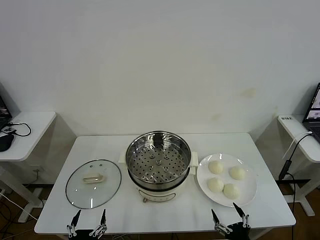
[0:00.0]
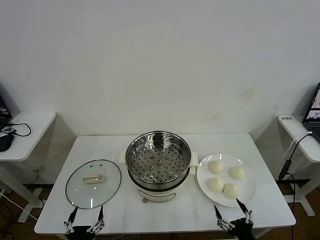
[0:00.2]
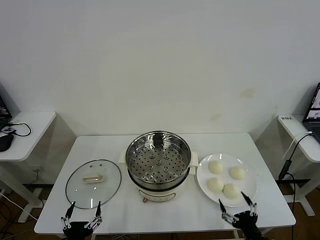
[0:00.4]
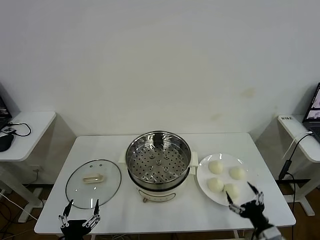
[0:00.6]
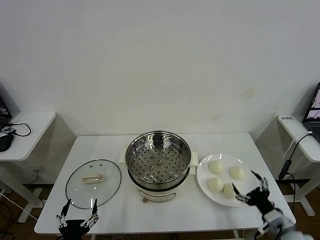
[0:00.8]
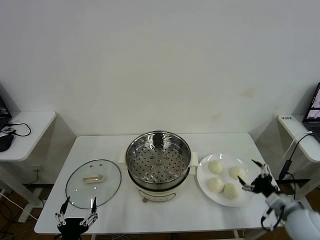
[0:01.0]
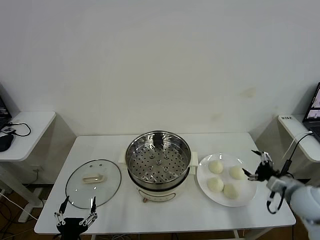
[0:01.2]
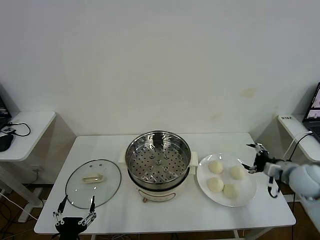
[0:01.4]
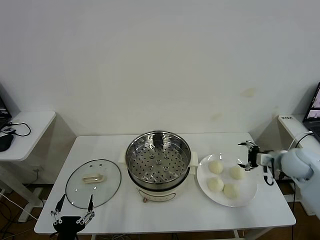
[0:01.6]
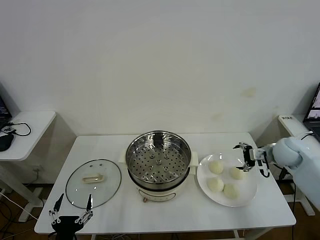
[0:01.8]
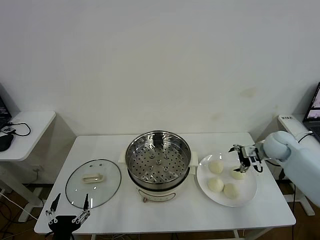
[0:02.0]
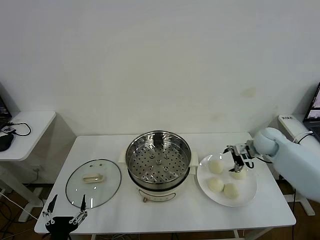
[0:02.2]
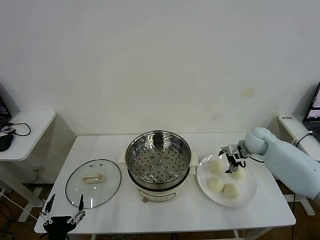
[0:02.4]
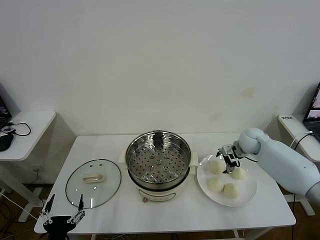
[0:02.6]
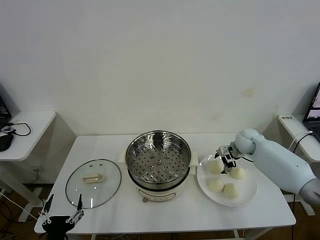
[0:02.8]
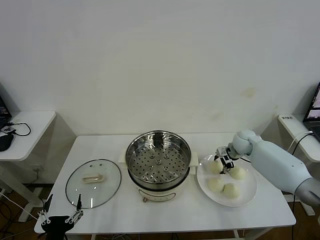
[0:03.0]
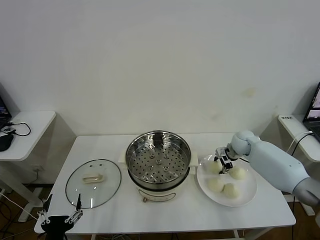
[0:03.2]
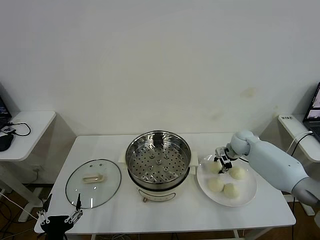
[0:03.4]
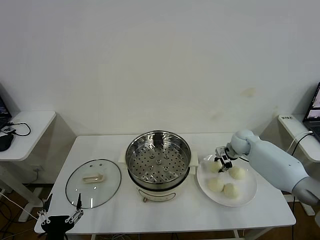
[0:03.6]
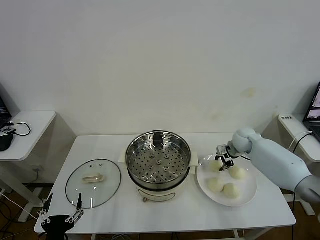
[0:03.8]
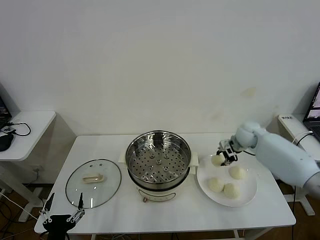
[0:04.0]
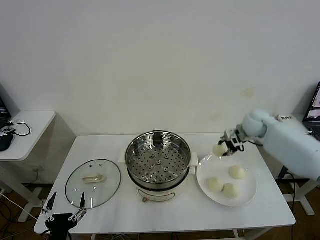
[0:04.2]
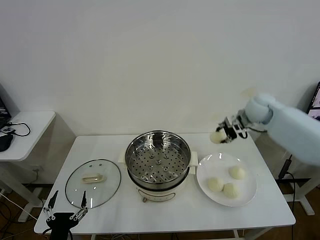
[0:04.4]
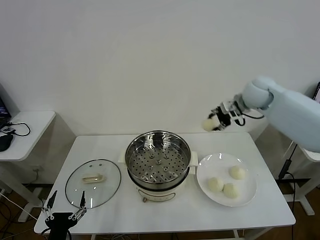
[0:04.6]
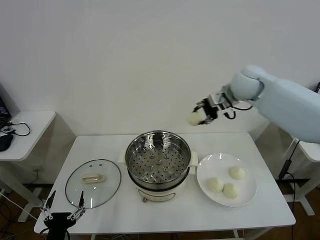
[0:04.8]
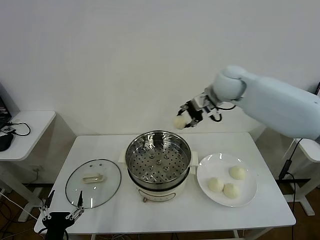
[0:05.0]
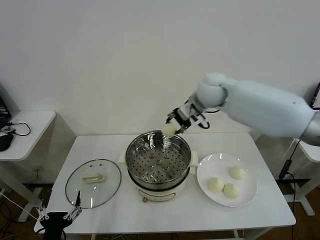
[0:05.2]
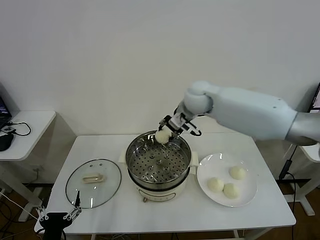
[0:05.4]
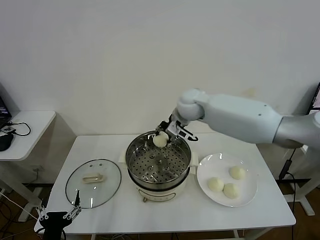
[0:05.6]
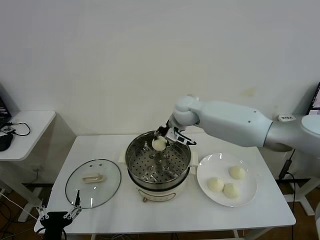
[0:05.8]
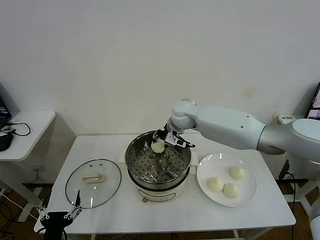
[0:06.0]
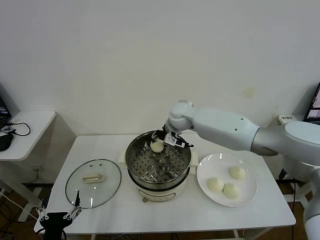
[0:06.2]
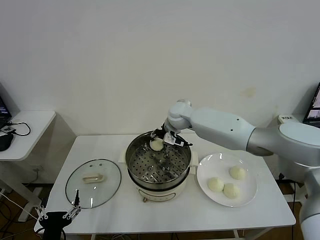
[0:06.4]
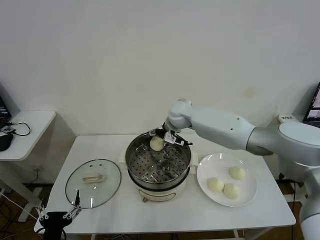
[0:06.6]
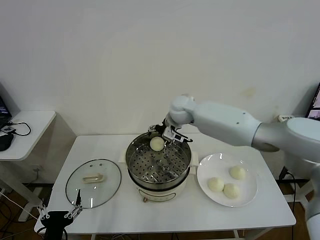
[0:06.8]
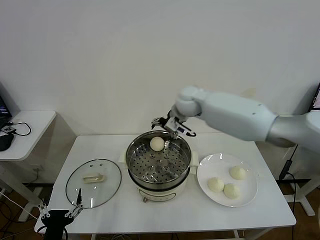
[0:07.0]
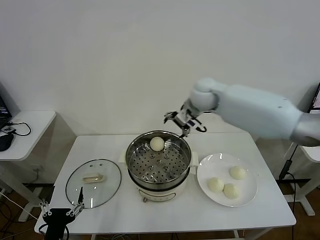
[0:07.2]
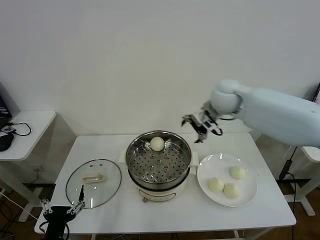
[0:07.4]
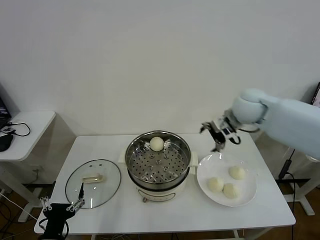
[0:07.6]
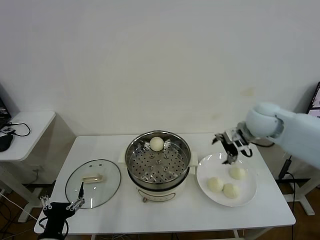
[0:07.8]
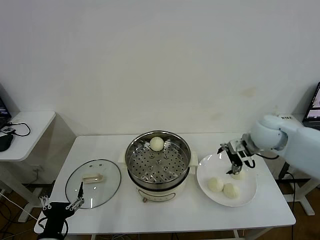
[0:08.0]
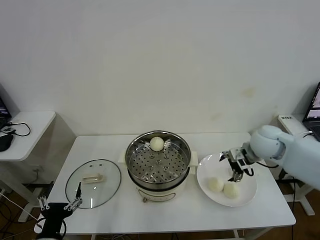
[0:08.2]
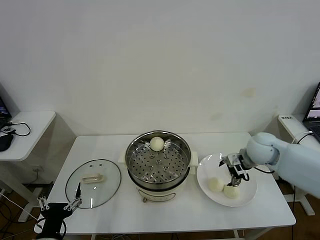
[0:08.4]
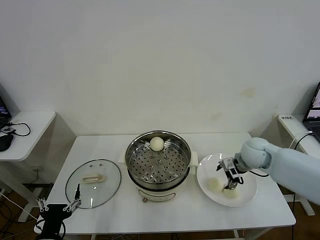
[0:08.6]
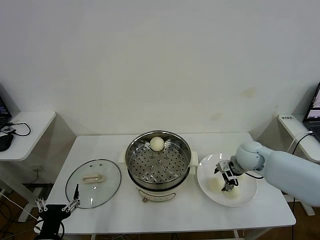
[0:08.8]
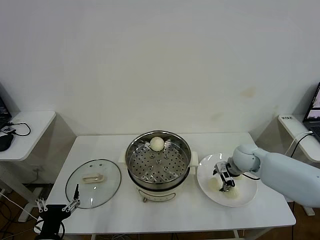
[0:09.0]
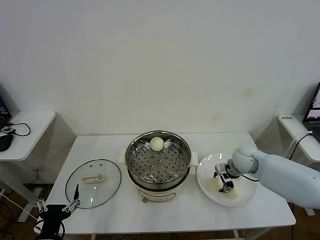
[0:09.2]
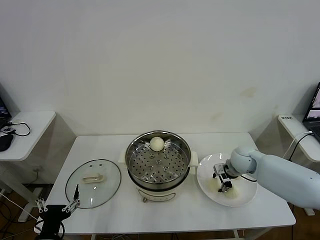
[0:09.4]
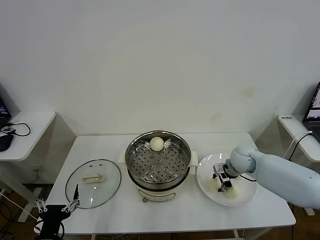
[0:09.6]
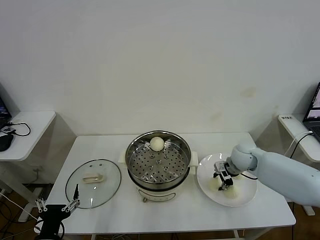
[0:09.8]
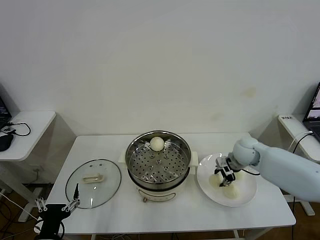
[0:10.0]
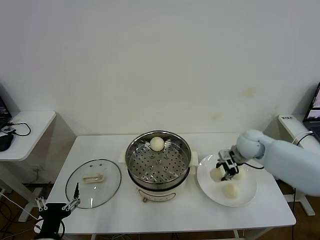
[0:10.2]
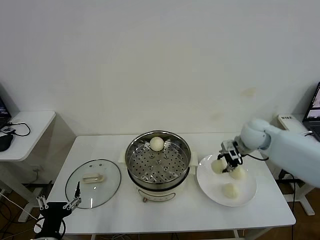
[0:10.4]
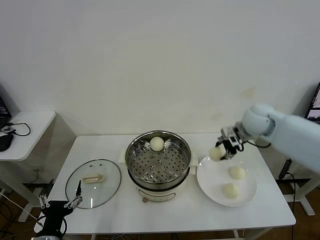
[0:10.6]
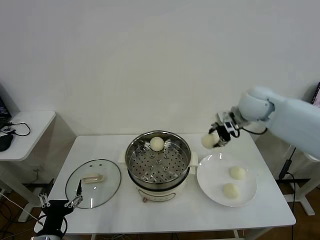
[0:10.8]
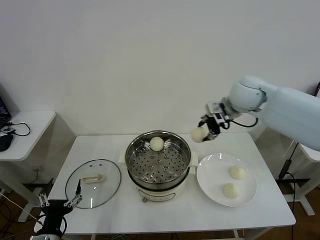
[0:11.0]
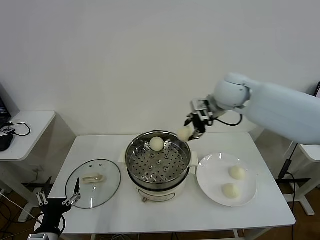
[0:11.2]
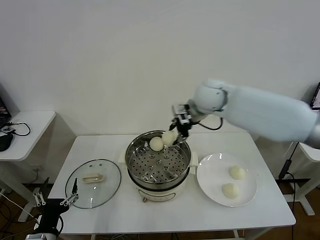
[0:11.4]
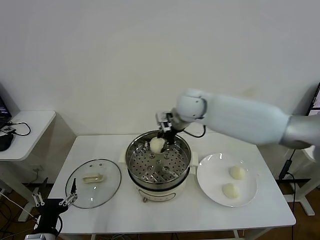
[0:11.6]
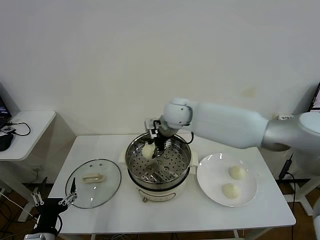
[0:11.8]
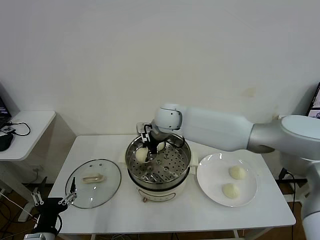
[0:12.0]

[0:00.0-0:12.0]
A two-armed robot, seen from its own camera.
Task of the whole recording: take steamed baozi put them in steamer then cover it.
Step, 0:00.0 to 0:03.4: Grasp the baozi in the plate with right gripper.
Step, 0:03.6 to 0:06.6: Place the baozi on the steamer with right gripper.
Step, 0:06.8 to 0:09.4: Grasp the baozi in the plate with right gripper.
0:01.6 to 0:03.0: The right gripper moves forward, to the left and downward, roughly 15 cm, and closes its fingers.
0:03.0 to 0:04.4: The right gripper shifts roughly 20 cm upward, and closes up.
0:04.4 to 0:06.0: The right gripper moves to the left, some 25 cm.
0:06.0 to 0:07.6: The right gripper moves to the right, about 20 cm, and opens.
0:07.6 to 0:09.0: The right gripper is displaced downward by about 20 cm, and closes its fingers.
0:09.0 to 0:10.4: The right gripper moves upward, roughly 15 cm, and closes its fingers.
0:10.4 to 0:12.0: The right gripper is displaced to the left by approximately 30 cm.

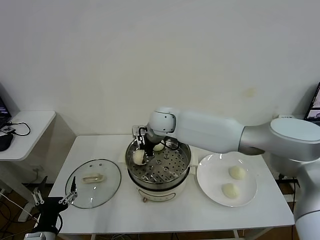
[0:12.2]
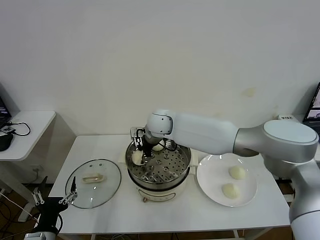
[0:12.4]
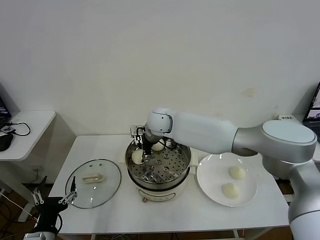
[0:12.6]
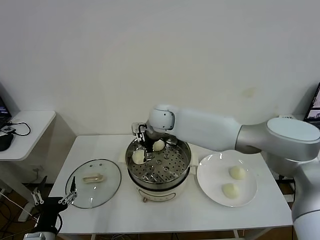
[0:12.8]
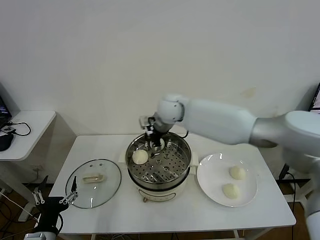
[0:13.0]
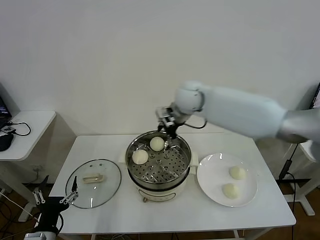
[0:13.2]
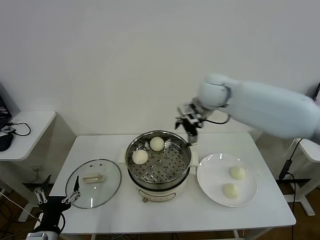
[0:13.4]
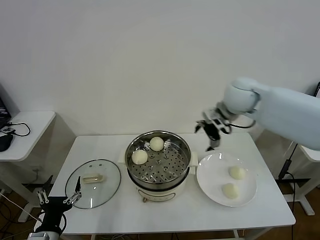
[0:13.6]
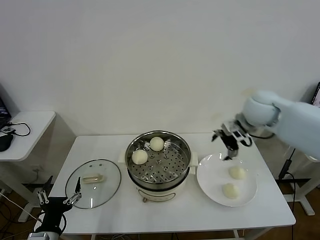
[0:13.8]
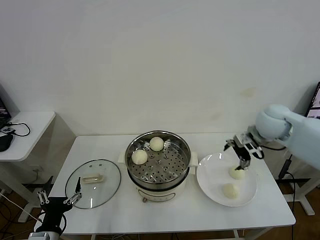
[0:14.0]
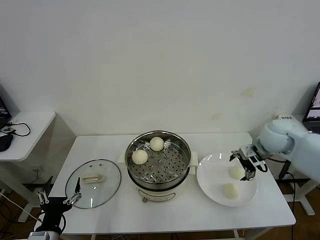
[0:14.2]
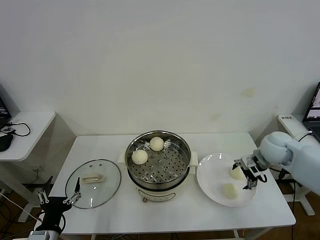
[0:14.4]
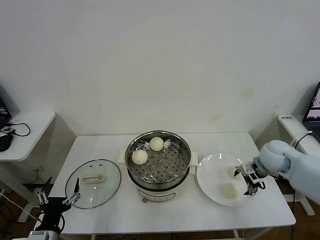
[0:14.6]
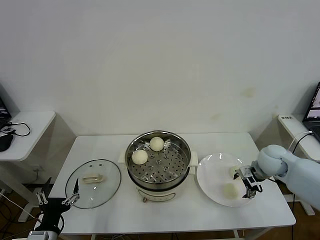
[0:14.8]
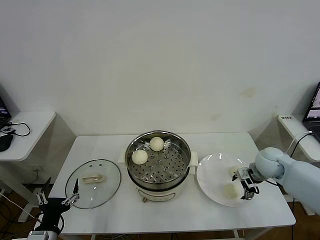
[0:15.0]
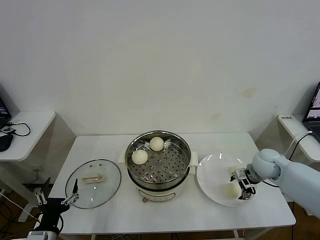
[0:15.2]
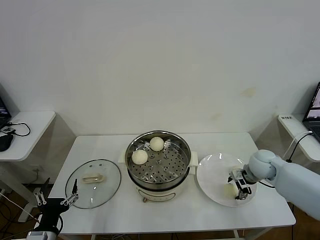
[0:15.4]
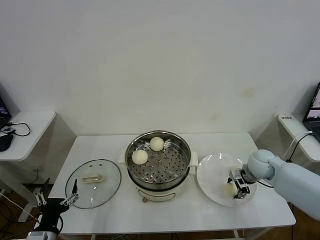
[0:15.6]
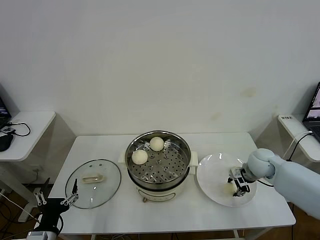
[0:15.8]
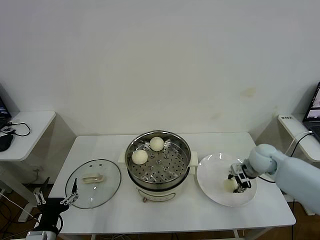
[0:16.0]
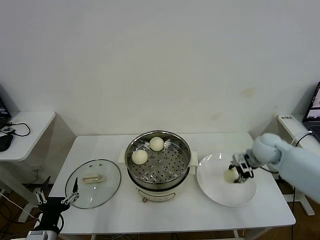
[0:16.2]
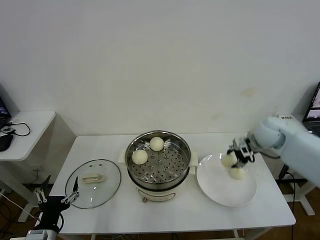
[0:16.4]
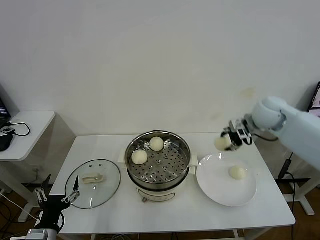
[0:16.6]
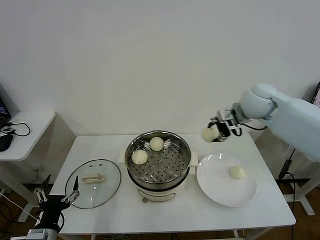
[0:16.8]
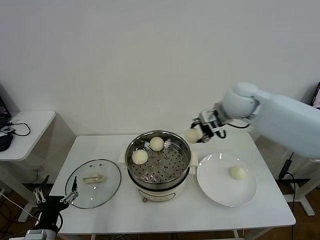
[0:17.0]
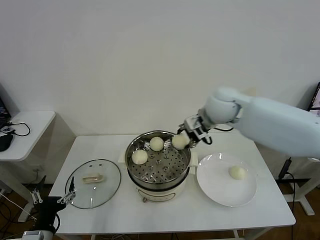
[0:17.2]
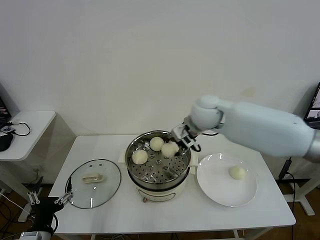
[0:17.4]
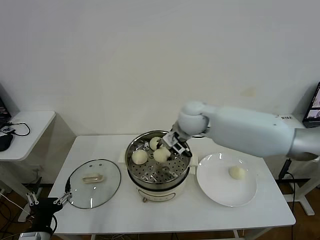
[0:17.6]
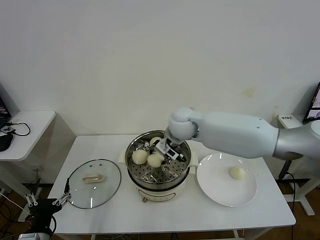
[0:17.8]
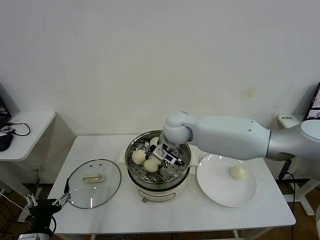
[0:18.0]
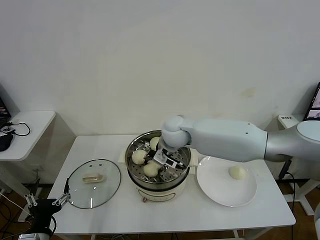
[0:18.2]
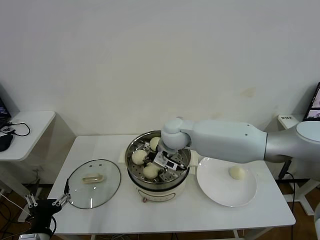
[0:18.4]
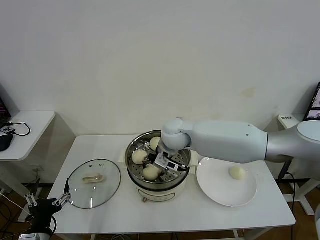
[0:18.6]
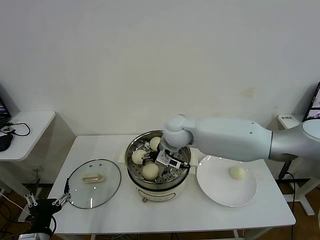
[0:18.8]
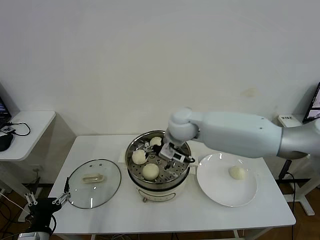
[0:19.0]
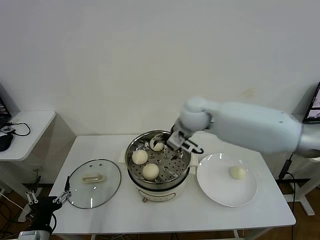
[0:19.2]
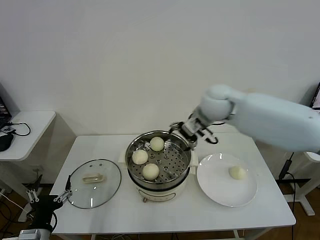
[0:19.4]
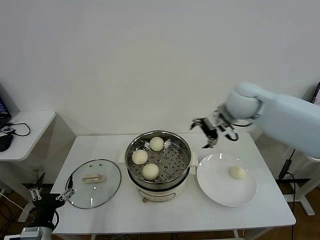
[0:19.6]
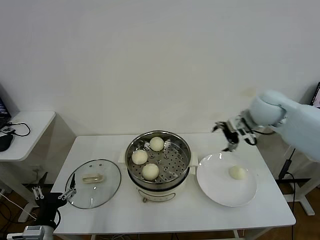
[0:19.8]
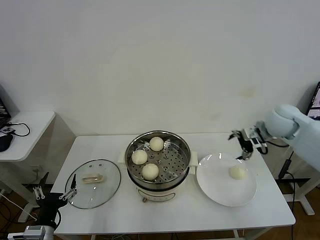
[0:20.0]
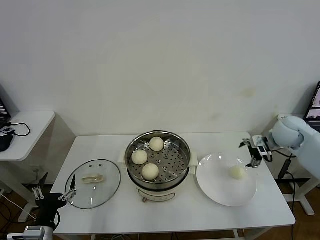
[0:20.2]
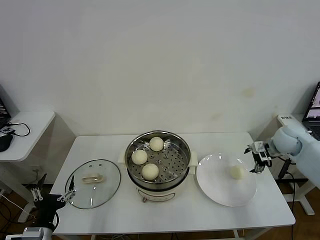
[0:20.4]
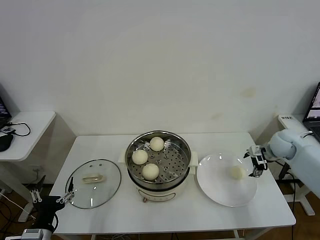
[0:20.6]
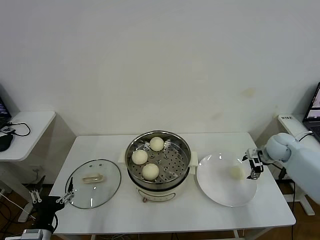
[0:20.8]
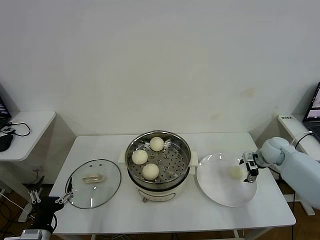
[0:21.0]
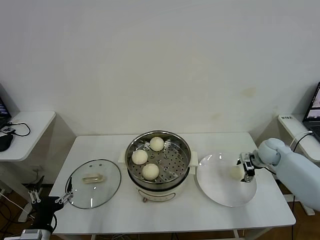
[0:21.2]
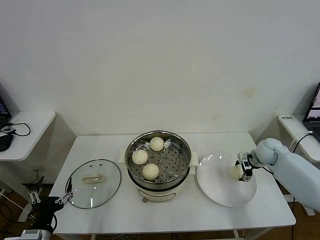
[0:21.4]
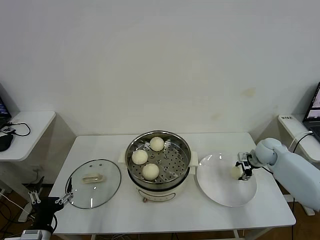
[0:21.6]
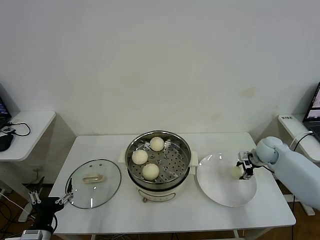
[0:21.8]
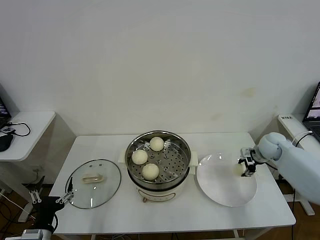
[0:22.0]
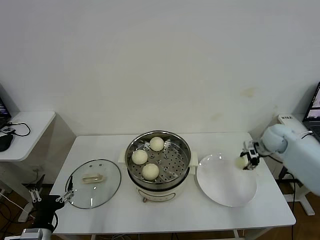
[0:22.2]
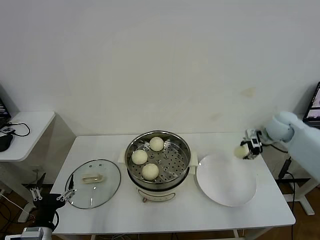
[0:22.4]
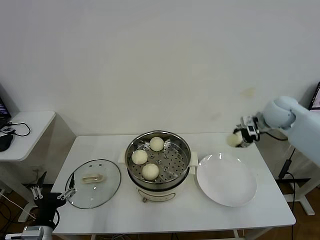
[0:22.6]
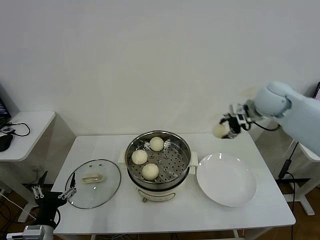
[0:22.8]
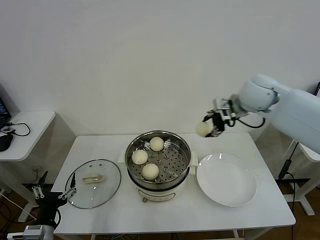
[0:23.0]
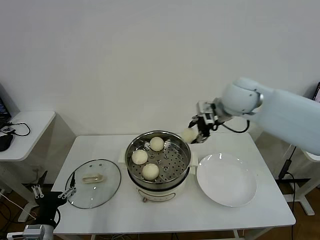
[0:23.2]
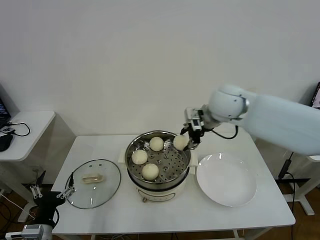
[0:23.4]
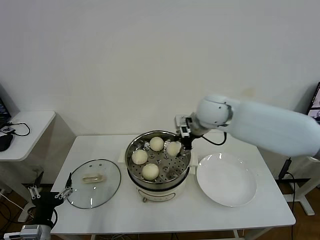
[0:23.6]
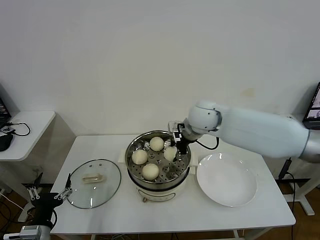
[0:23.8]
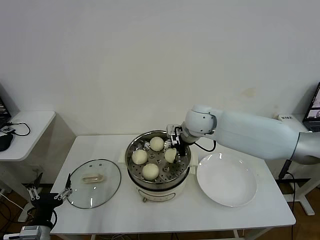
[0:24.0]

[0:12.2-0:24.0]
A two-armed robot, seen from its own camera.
Task of the whole recording: take steamed baozi put them in steamer then cover it.
Step, 0:13.0 to 0:15.8: Grasp the baozi in the plate with right gripper.
Step, 0:16.0 to 0:18.8: Place the baozi on the steamer with right gripper.
Step, 0:19.0 to 0:21.6: Grasp the baozi in the plate with right gripper.
0:12.2 to 0:13.6: The right gripper shifts some 25 cm to the right, and opens up.
0:13.6 to 0:15.2: The right gripper goes about 25 cm downward and to the right.
0:15.2 to 0:16.6: The right gripper travels upward by roughly 20 cm, and closes up.
0:16.6 to 0:18.2: The right gripper heads to the left, covering approximately 25 cm.
0:18.2 to 0:19.6: The right gripper moves to the right and upward, some 25 cm, and opens.
0:19.6 to 0:21.0: The right gripper is displaced downward and to the right by some 30 cm.
0:21.0 to 0:22.6: The right gripper heads upward, covering roughly 20 cm, and closes up.
0:22.6 to 0:24.0: The right gripper shifts roughly 25 cm to the left.
